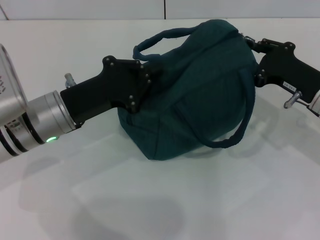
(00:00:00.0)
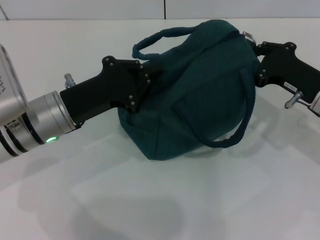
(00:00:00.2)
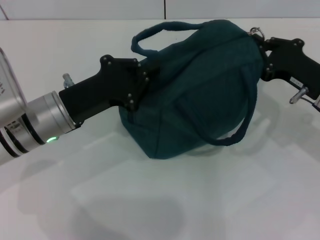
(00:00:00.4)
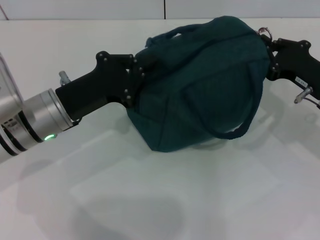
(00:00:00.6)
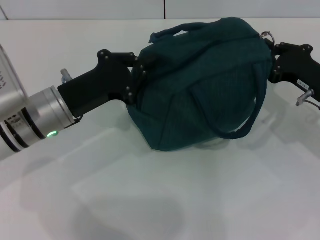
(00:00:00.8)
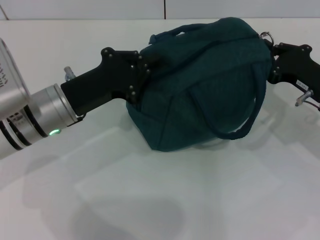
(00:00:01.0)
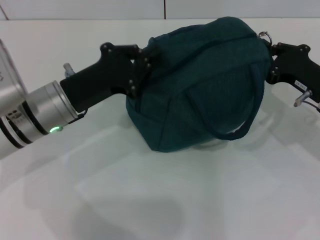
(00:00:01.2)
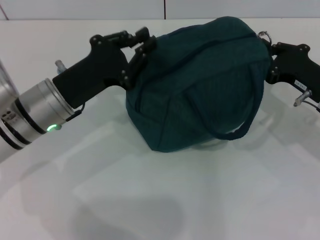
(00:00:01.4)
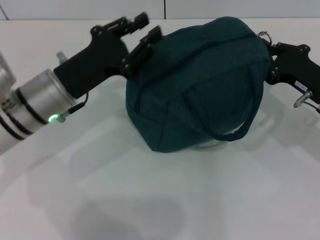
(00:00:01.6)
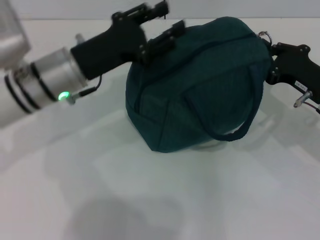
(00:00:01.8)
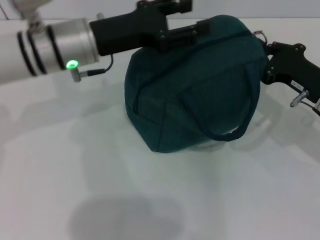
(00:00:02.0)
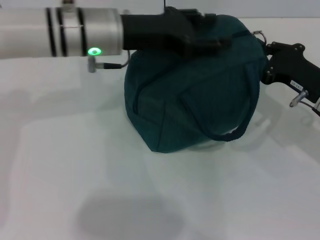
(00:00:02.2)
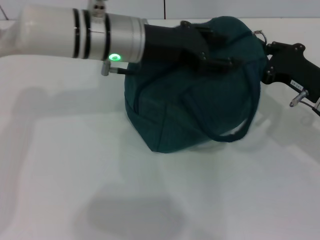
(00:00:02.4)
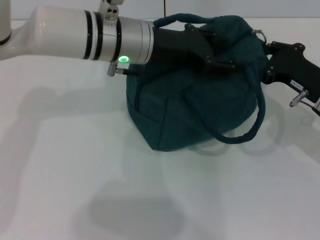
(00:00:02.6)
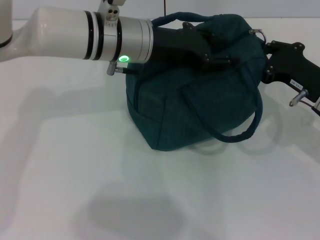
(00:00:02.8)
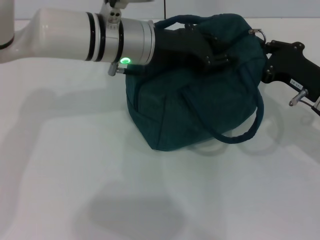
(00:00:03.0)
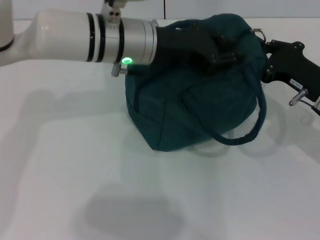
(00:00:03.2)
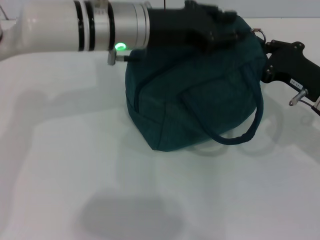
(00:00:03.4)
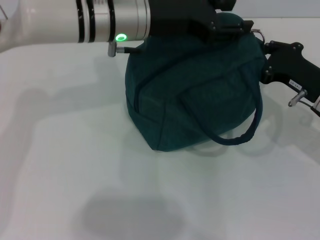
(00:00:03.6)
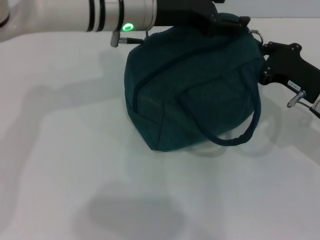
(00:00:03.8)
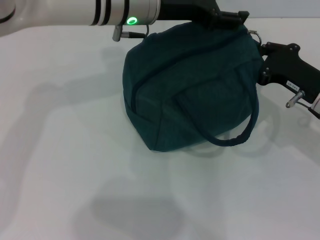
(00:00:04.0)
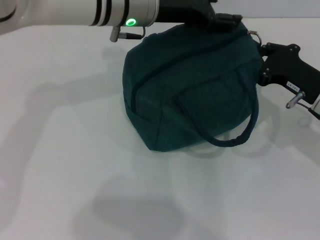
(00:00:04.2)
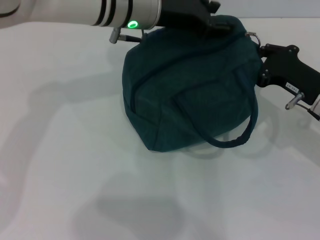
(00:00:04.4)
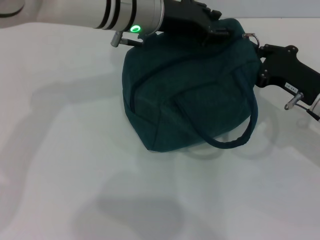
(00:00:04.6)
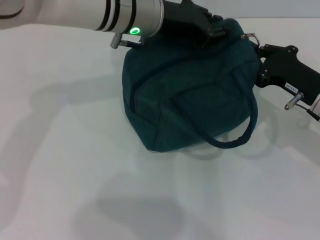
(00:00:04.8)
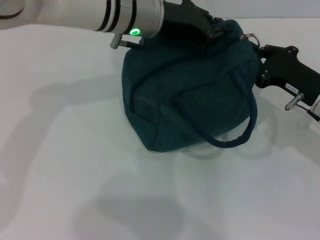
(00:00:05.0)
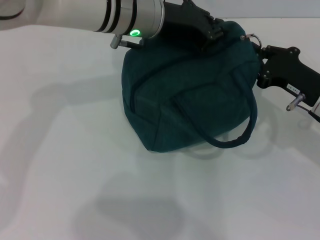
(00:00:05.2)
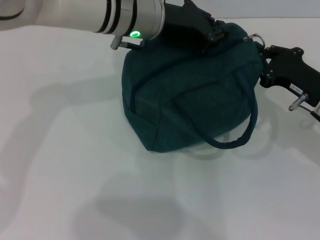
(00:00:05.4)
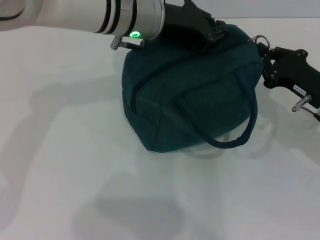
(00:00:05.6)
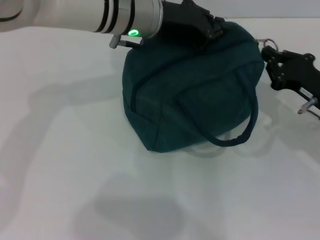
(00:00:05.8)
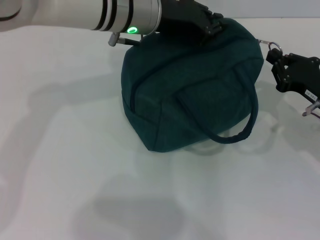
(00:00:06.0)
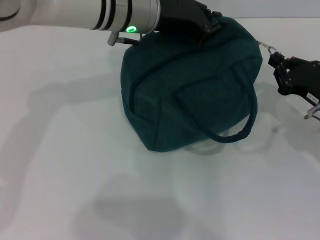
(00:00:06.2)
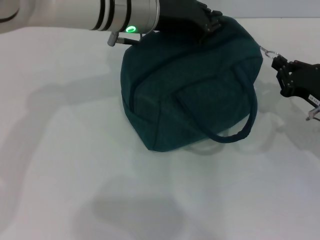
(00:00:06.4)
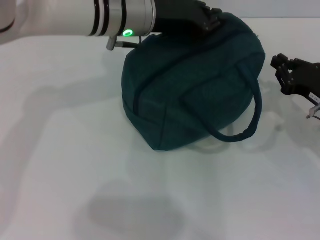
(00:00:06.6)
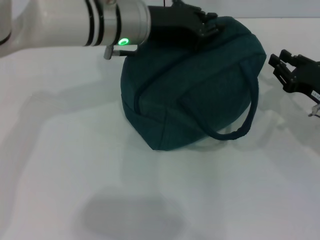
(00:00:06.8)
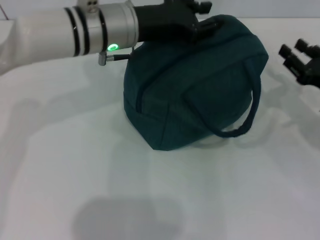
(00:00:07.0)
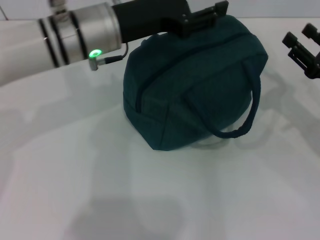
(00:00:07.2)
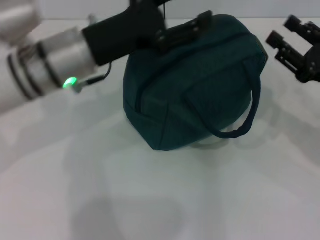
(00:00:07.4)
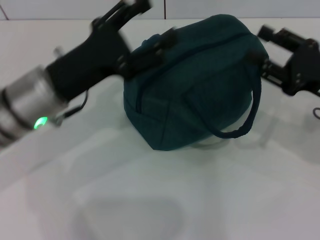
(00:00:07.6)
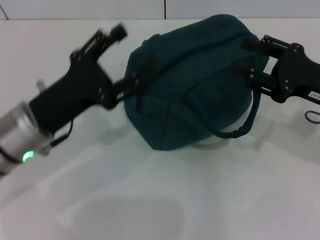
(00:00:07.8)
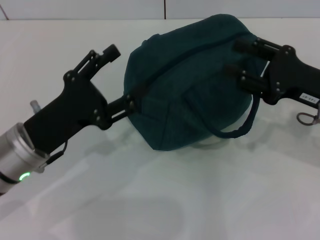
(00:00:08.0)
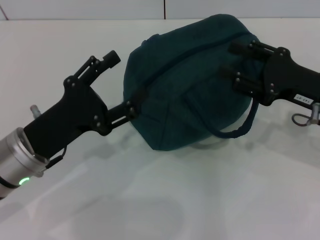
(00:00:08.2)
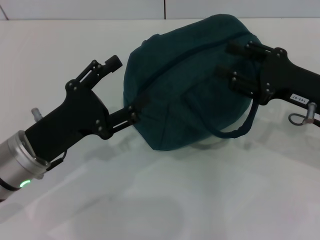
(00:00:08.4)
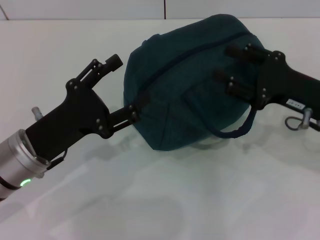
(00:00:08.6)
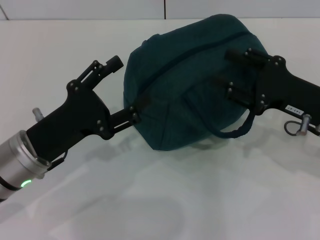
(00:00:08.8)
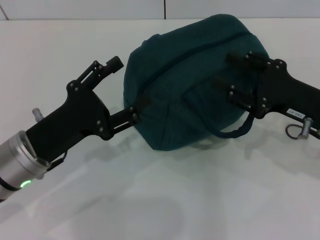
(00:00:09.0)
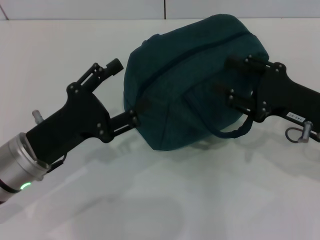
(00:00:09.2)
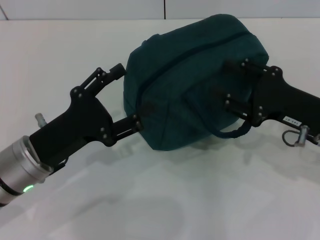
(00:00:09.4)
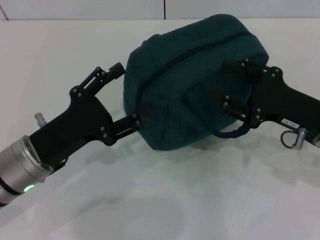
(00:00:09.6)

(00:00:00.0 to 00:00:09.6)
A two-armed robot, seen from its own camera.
Step, 00:00:00.0 - 00:00:06.4: Zip up the lunch bag with your right hand.
Step, 00:00:06.6 - 00:00:07.2: Hold the lunch bag with your left hand.
00:00:00.0 - 00:00:01.6: The right gripper closes.
00:00:01.6 - 00:00:03.2: The left gripper travels to the right, forward and upward by approximately 15 cm, and opens and closes again.
00:00:03.2 - 00:00:04.8: The left gripper opens, then closes once more.
00:00:04.8 - 00:00:06.4: The left gripper closes.
00:00:06.4 - 00:00:08.0: The right gripper moves upward, roughly 5 cm, and opens, while the left gripper shifts some 25 cm backward, to the left and downward, and opens.
00:00:08.0 - 00:00:09.6: The grippers stay close to where they were, moving slightly.

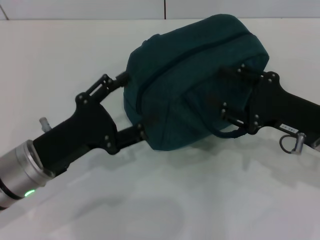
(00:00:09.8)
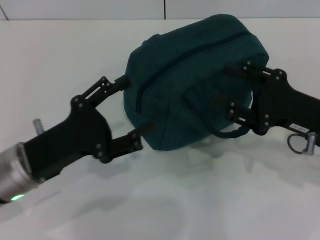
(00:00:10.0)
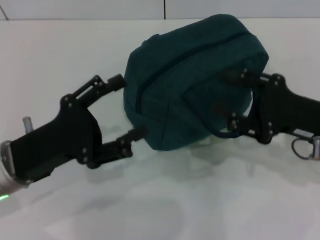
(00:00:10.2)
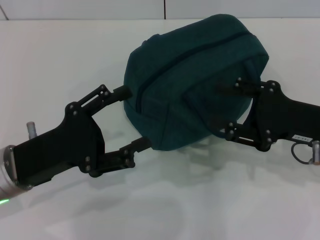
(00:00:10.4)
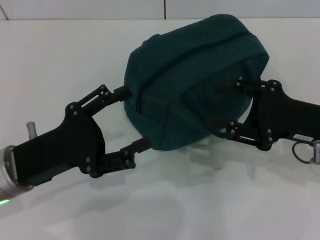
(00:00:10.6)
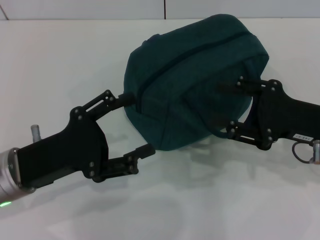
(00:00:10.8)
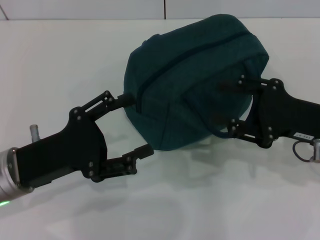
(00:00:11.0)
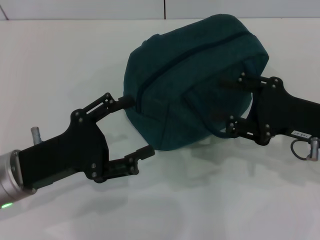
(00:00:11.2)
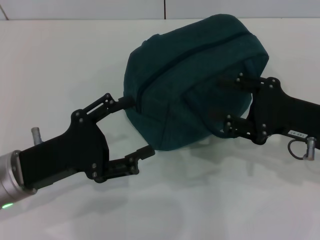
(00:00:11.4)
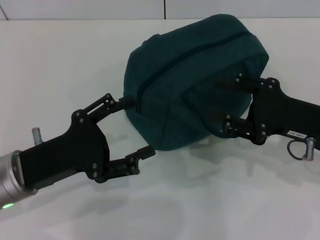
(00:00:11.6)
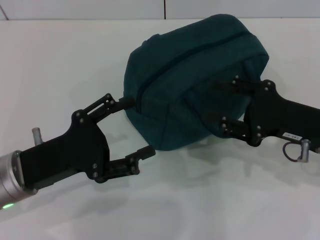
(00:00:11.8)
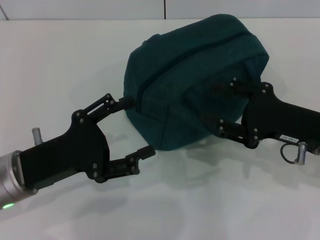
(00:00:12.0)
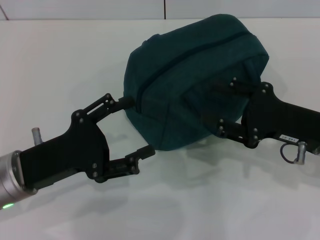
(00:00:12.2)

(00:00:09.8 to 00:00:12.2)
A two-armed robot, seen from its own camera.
00:00:09.8 - 00:00:12.2: The grippers stay close to where they were, moving slightly.
